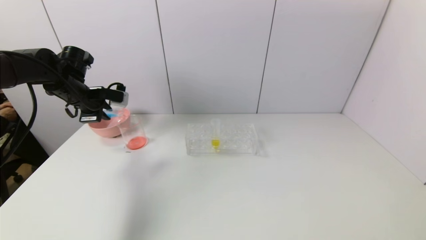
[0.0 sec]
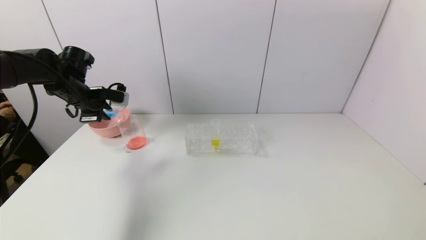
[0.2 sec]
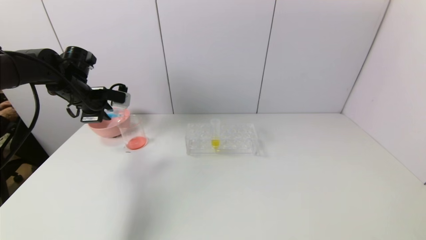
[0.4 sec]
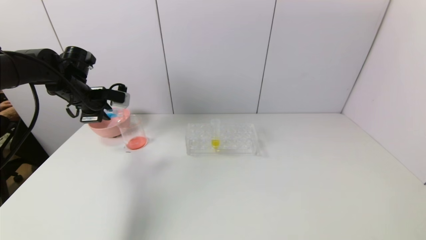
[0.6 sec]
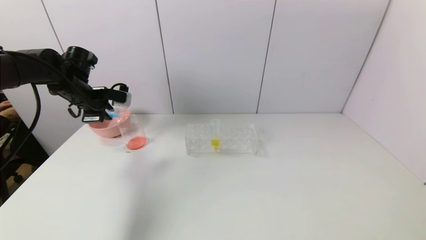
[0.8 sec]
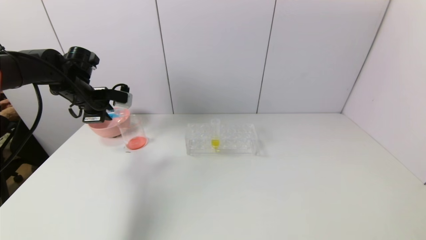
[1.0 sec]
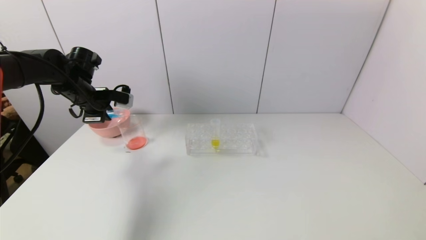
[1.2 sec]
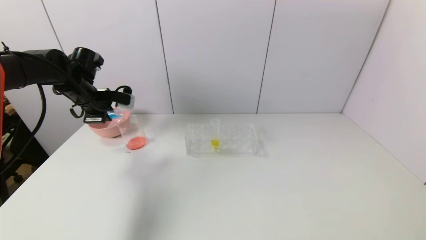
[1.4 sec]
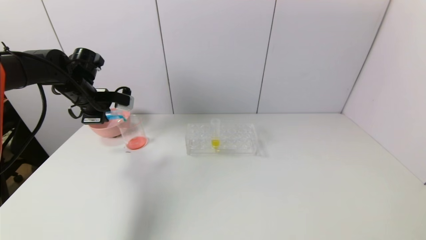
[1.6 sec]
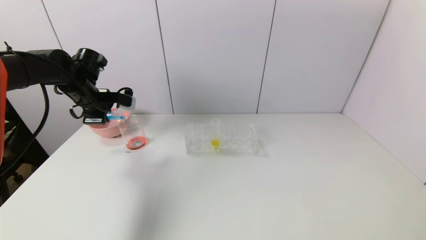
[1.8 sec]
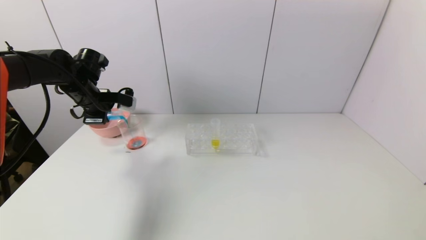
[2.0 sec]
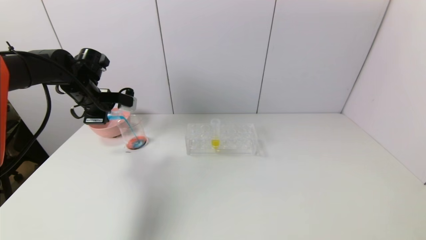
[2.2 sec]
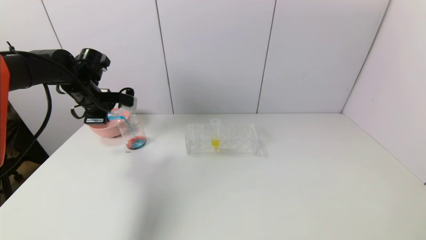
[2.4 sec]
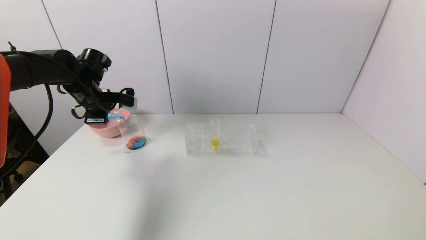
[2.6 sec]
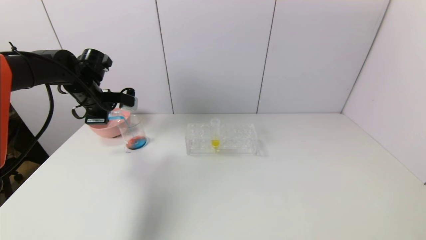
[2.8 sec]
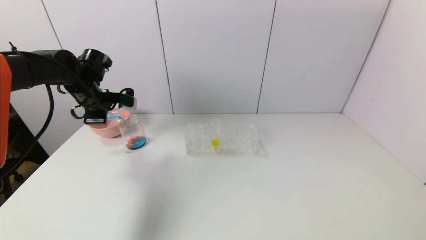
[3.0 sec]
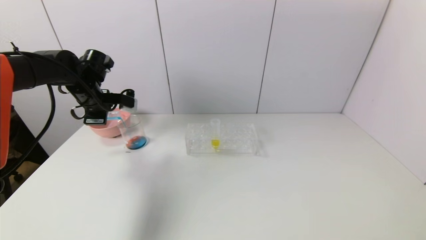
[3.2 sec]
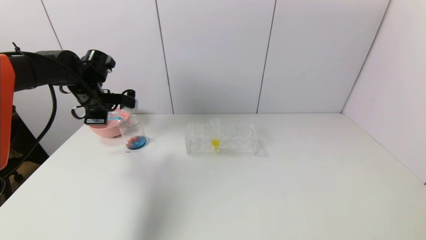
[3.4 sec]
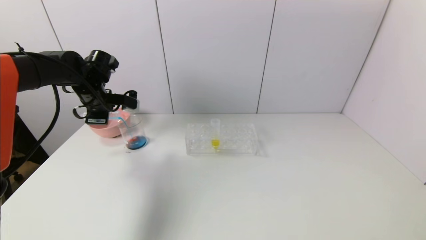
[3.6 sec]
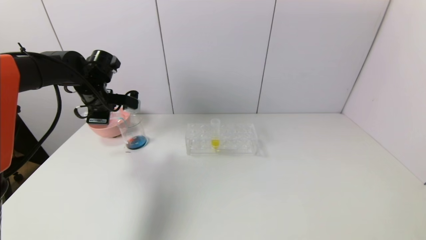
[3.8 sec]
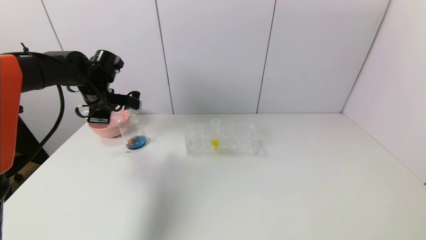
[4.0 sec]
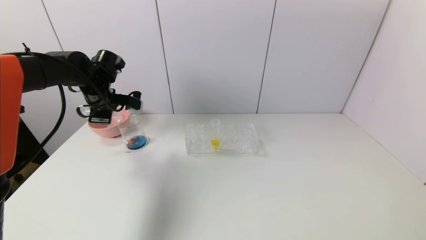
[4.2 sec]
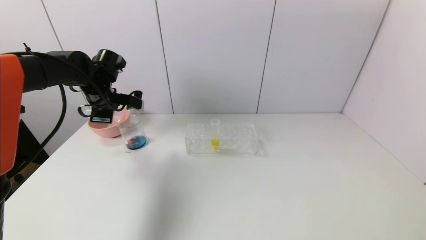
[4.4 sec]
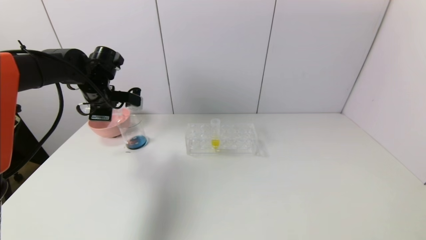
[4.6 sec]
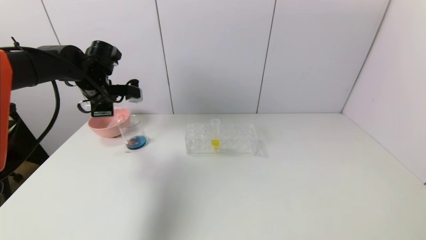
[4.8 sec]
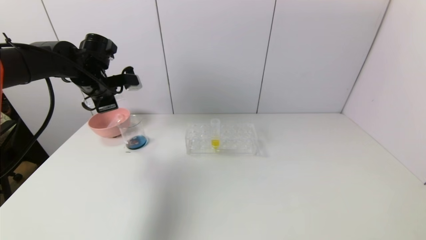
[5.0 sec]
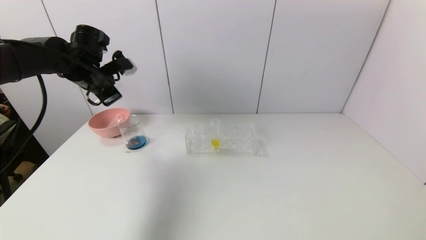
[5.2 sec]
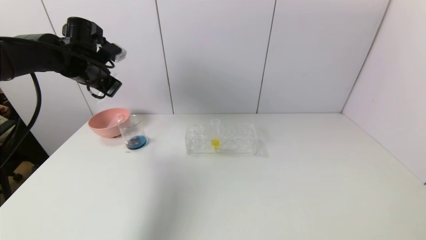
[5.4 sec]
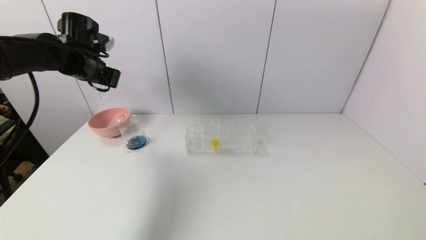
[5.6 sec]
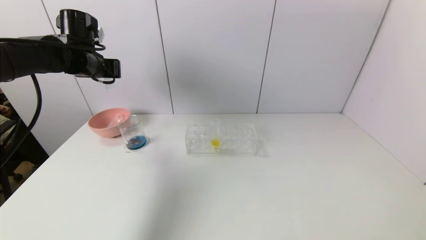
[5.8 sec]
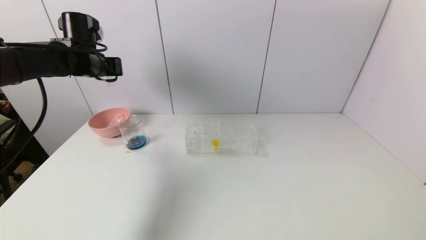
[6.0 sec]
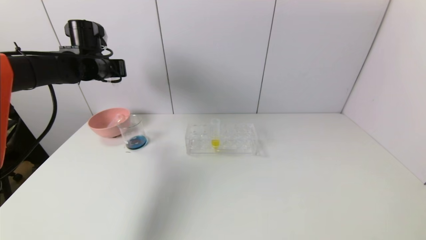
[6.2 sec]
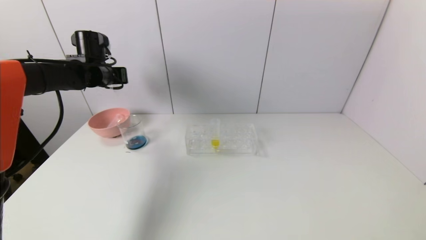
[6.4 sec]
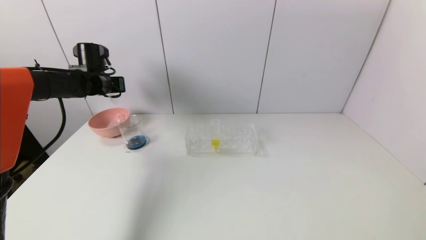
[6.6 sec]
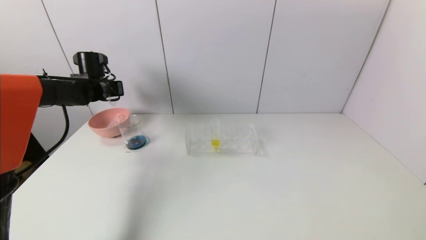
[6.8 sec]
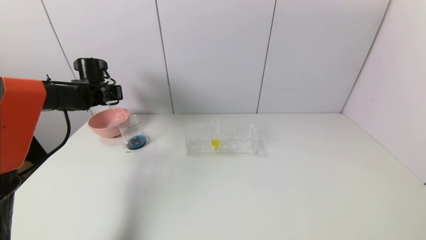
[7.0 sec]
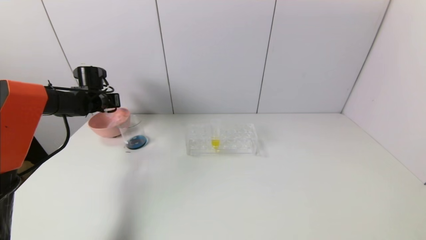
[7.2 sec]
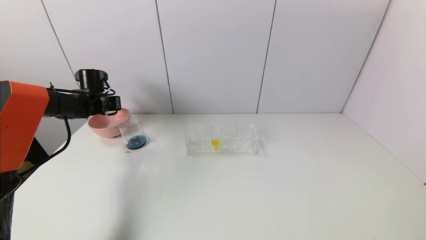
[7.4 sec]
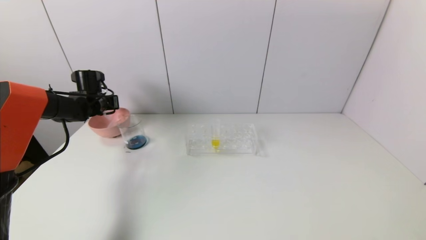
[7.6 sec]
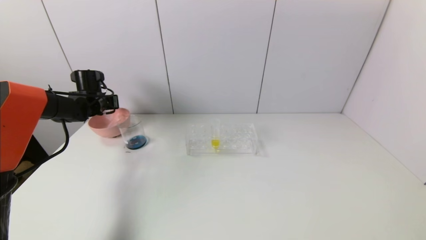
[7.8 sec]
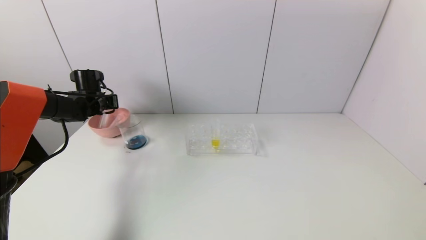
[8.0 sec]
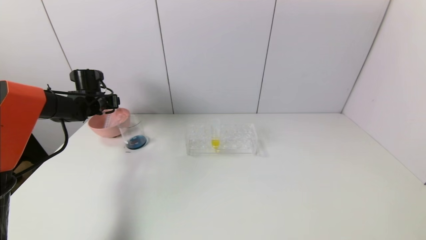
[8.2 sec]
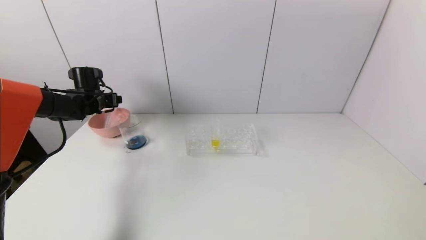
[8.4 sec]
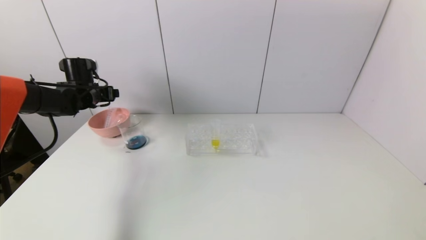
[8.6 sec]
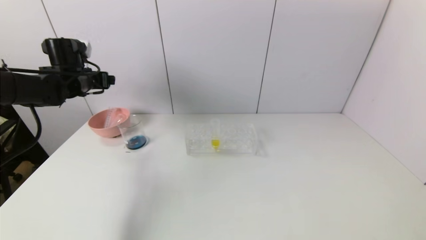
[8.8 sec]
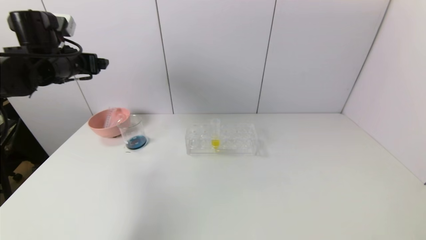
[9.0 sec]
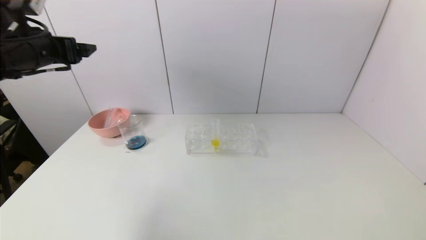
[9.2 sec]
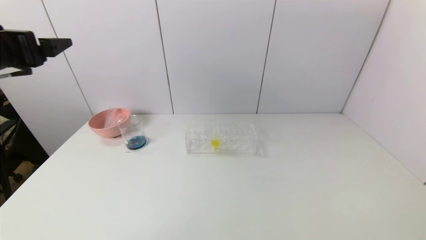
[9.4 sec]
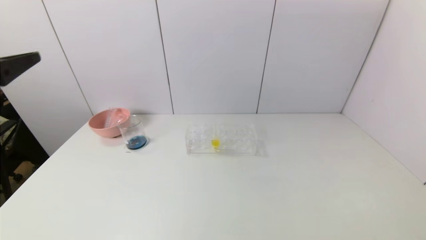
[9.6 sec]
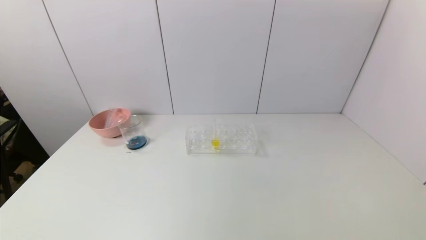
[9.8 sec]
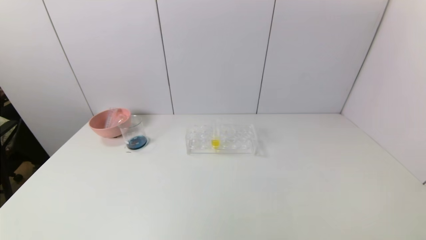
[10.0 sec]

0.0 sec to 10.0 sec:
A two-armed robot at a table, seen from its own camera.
Task of the whole recording: pick up the test tube with red pigment and the test tube with blue pigment by grippers and pour them into the container.
Step, 0.0 sec to 4.6 sec: Pour the blue reagent into the graduated cylinder with the left gripper.
Step, 4.8 sec to 8.8 sec: Place the test tube into the bowl with the left gripper.
0.0 sec to 2.8 sec: The grippers move only a little.
2.8 sec to 4.2 sec: The grippers move only a little.
4.2 sec to 5.8 sec: The left gripper moves upward, some 5 cm.
5.8 sec to 7.2 sec: The left gripper shifts approximately 15 cm downward, forward and to the left.
7.2 sec to 8.6 sec: The left gripper ends up about 5 cm from where it was, and opens.
8.6 sec to 10.0 sec: The left gripper goes some 50 cm backward.

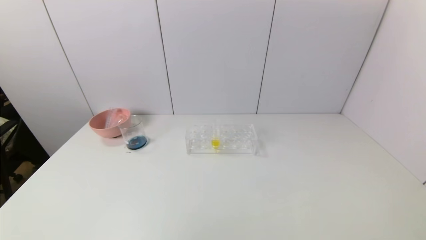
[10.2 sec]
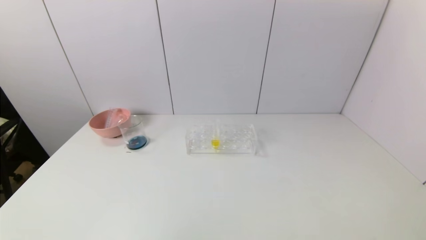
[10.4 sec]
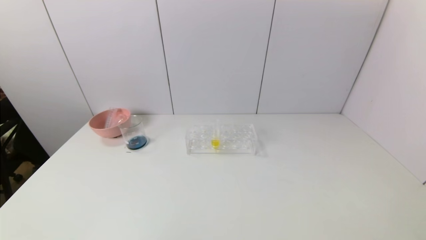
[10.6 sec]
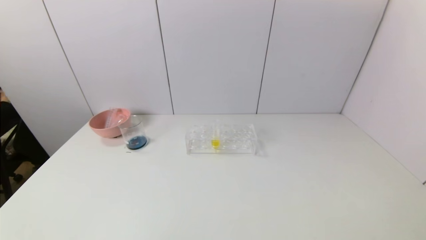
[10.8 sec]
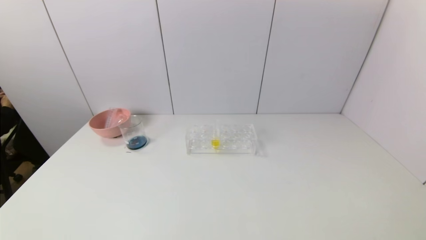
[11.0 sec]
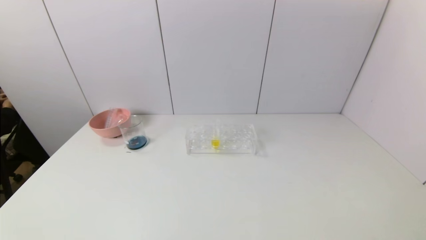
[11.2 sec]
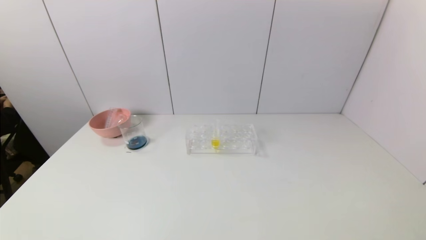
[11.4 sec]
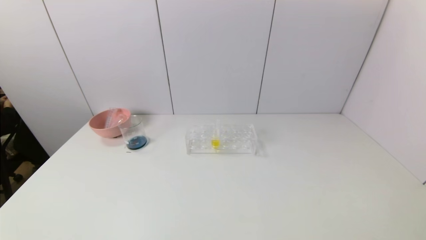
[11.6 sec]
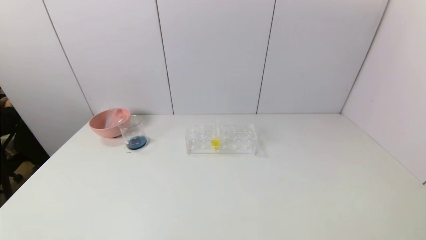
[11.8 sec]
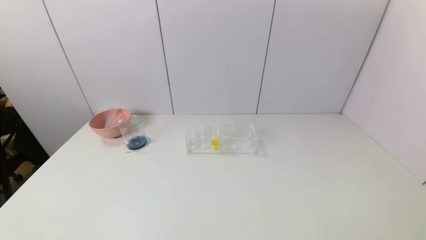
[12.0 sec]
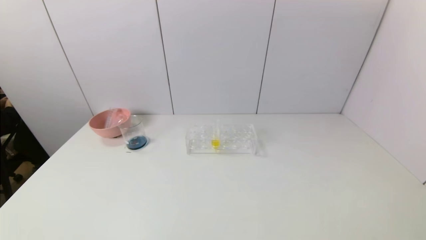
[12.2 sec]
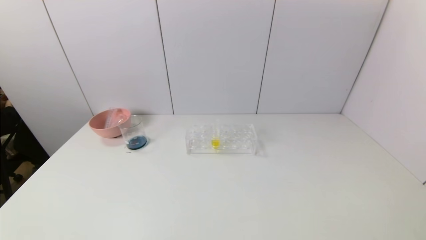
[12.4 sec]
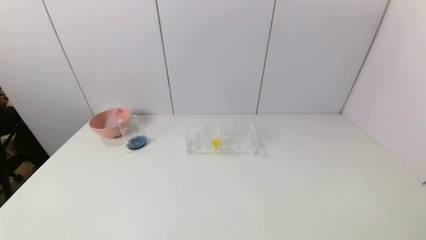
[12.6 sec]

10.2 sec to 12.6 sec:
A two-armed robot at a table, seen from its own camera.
Task of the whole recording: pick up the test tube with red pigment and the test tube with blue pigment by grippers and pour them into the container.
11.4 sec to 12.6 sec: Both grippers stay about where they are.
